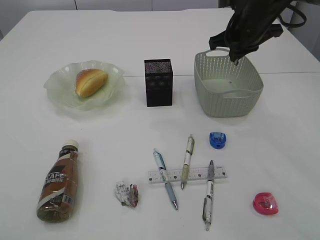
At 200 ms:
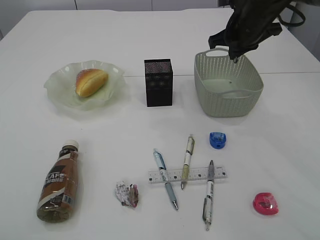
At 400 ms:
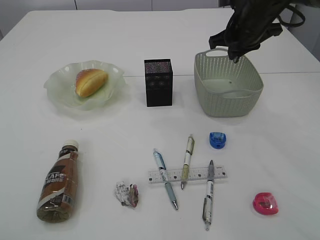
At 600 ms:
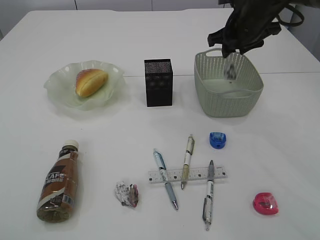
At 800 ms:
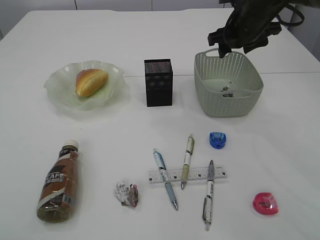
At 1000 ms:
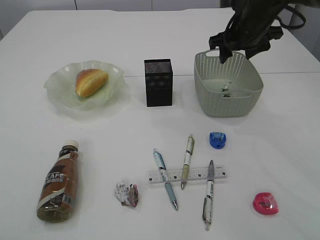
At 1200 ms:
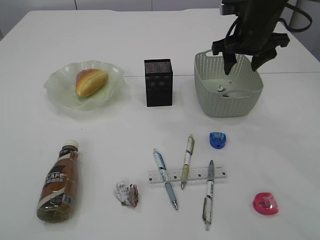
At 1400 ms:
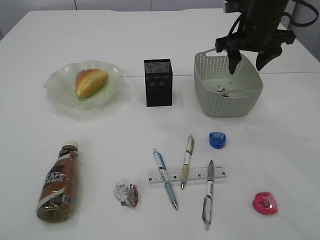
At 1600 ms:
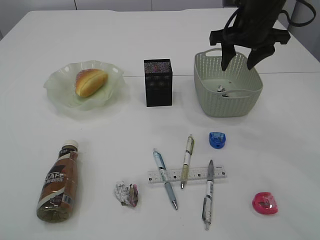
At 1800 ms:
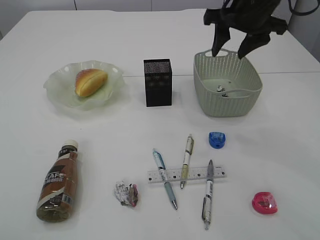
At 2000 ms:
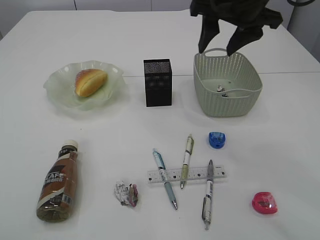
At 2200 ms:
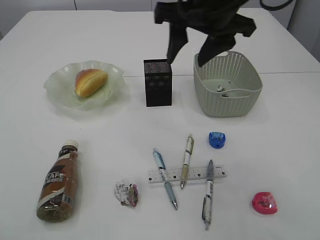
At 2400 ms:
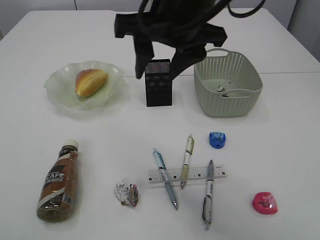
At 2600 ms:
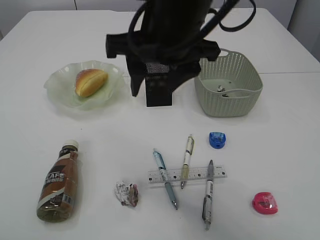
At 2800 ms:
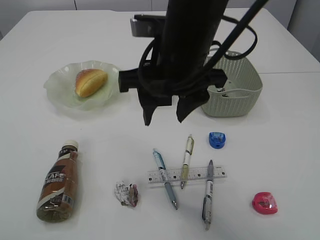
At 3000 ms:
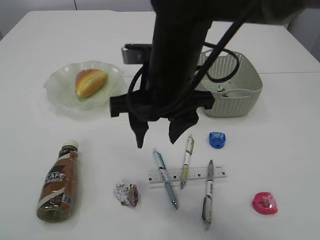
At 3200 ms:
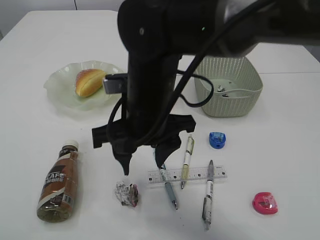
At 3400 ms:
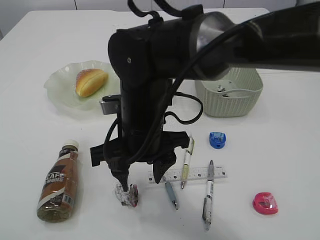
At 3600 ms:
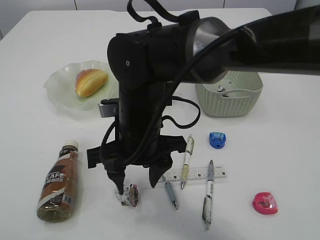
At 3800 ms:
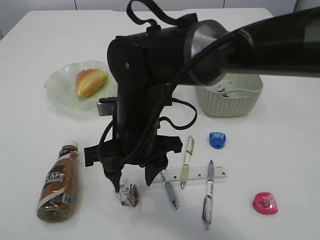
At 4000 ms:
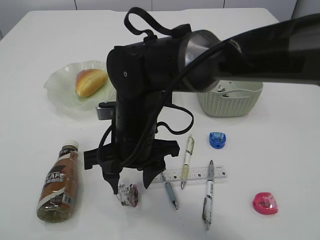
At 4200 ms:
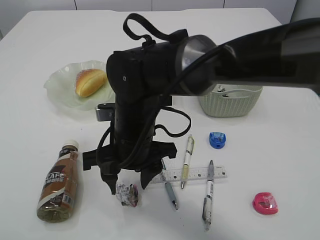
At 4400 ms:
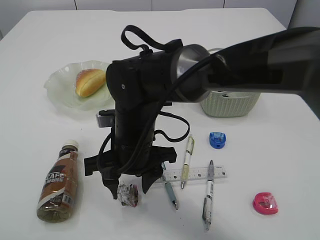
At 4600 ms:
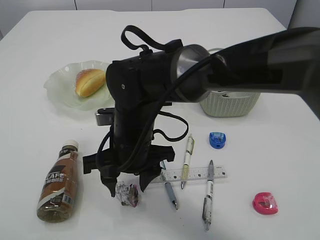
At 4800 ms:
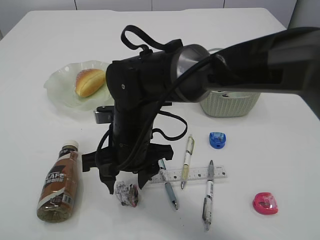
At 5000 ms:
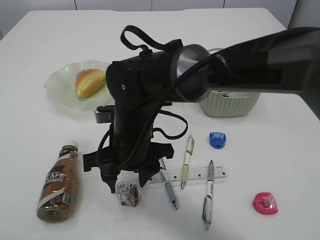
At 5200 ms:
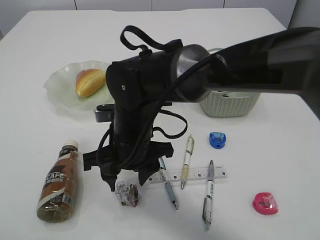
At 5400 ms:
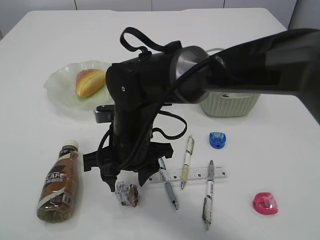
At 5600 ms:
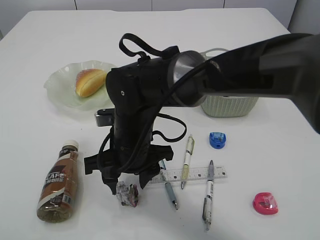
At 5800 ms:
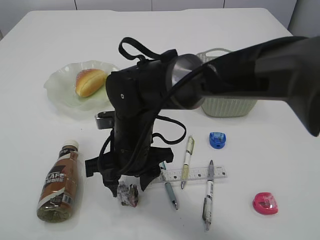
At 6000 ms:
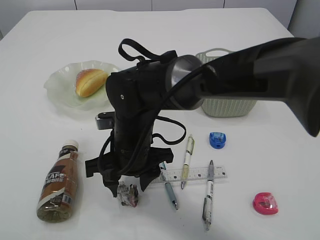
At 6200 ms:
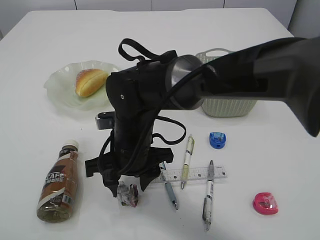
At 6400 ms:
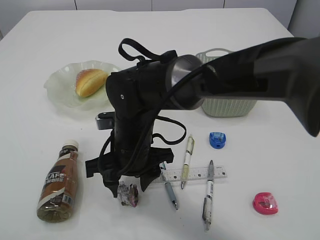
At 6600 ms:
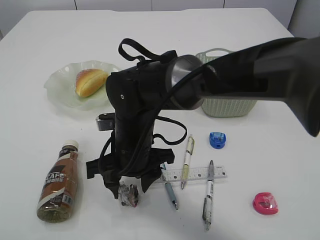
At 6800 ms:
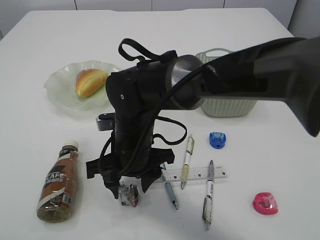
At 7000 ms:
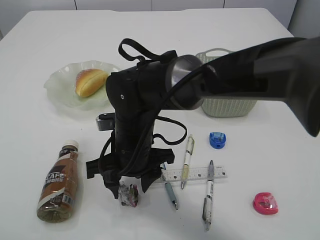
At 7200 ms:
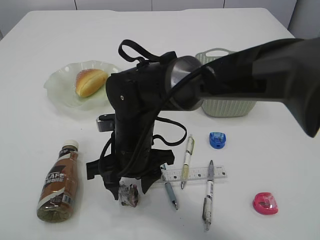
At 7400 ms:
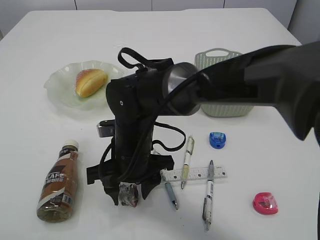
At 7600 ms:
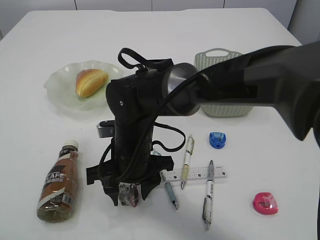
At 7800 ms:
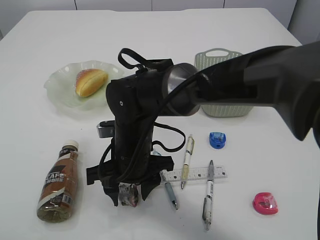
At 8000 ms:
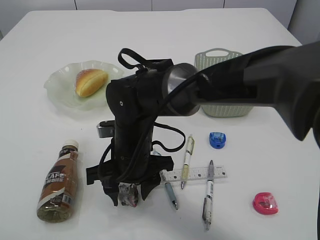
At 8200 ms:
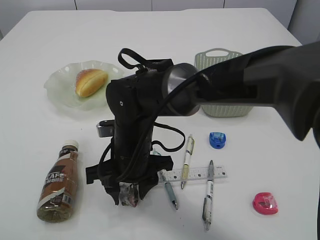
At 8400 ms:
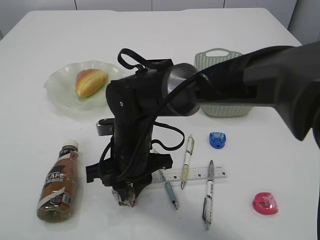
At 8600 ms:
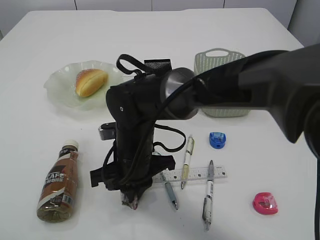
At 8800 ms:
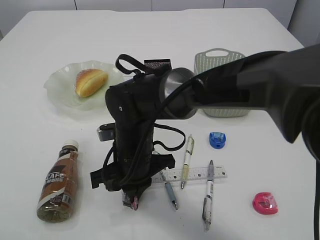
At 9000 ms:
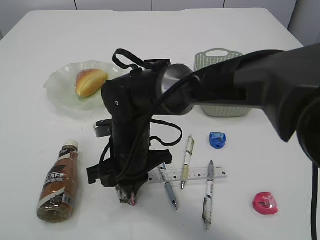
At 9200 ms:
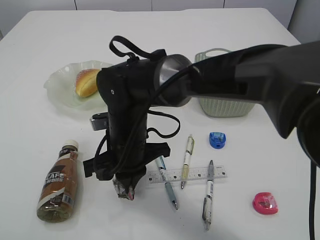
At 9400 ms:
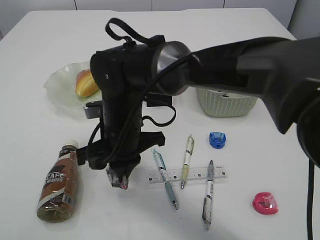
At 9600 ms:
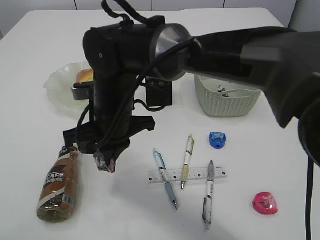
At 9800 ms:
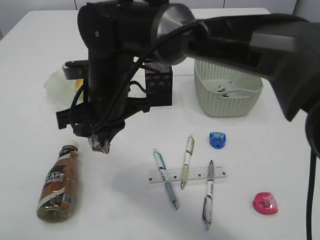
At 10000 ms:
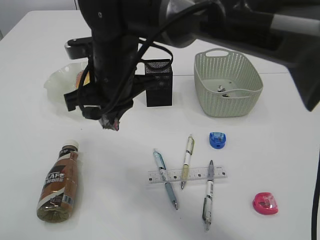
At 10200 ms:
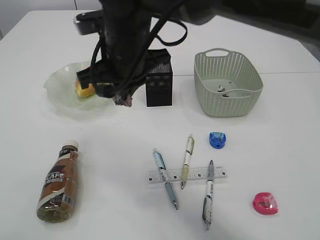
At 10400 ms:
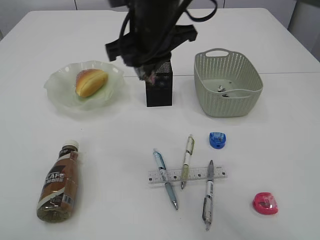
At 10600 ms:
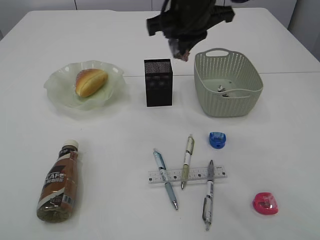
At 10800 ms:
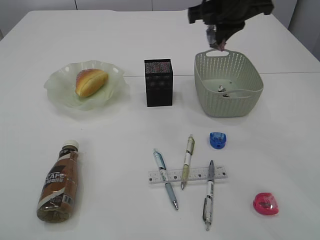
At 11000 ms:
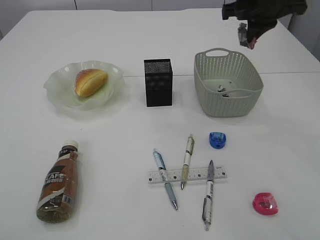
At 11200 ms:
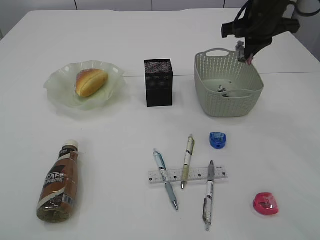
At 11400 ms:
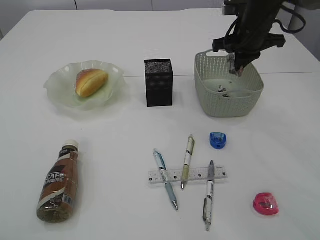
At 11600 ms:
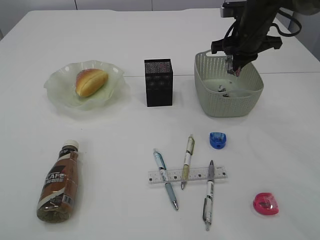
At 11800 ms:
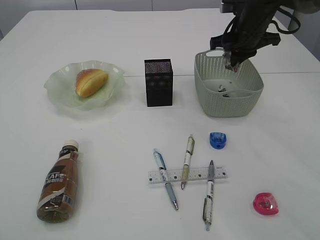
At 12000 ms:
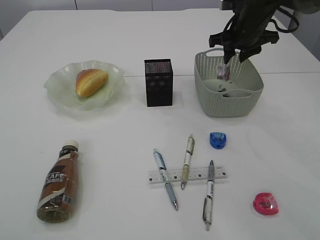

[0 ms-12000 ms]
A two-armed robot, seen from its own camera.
Step, 1800 ms to 9400 ms: Pick up the waste paper.
0 ms to 1600 ms: The right gripper opens up.
1600 ms to 3000 ms: The right gripper travels to the left and backward by approximately 20 cm.
3000 ms to 4400 ms: The right gripper travels downward and to the left by some 10 cm.
4400 ms to 6000 ms: The grippers make only small movements.
6000 ms to 7600 ms: Both grippers stay put.
7600 ms to 9000 ms: The right gripper closes its fingers.
9000 ms to 10400 ms: The right gripper moves upward, roughly 20 cm.
10400 ms to 12000 ms: The right gripper is displaced to the right and forward by approximately 25 cm, and opens up.

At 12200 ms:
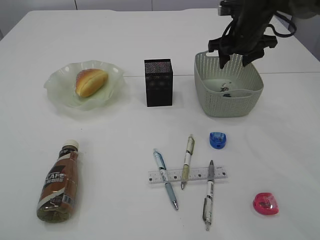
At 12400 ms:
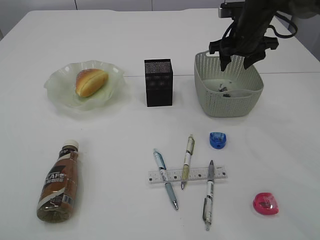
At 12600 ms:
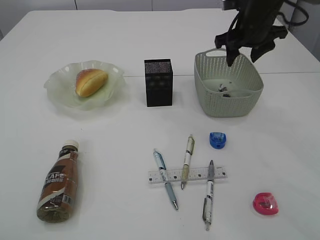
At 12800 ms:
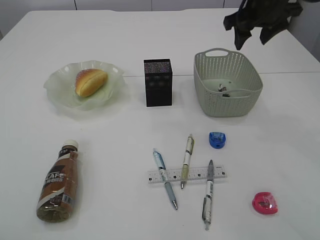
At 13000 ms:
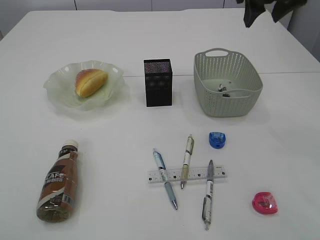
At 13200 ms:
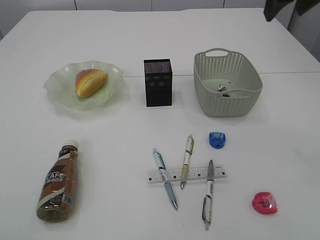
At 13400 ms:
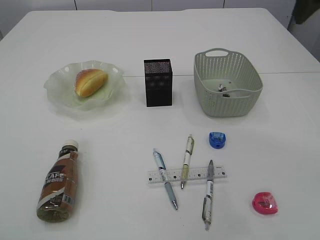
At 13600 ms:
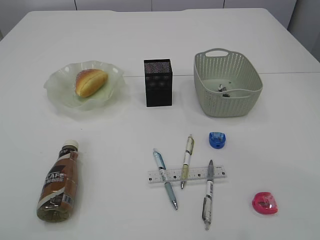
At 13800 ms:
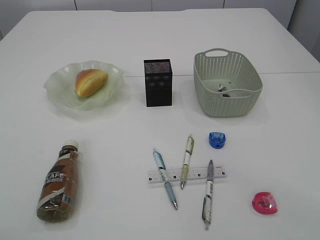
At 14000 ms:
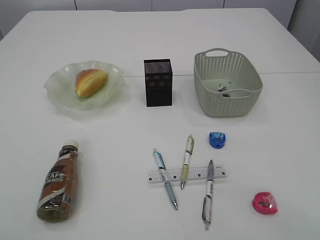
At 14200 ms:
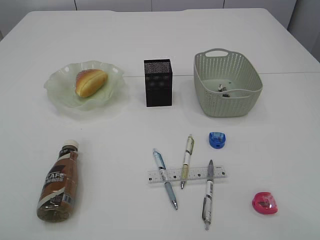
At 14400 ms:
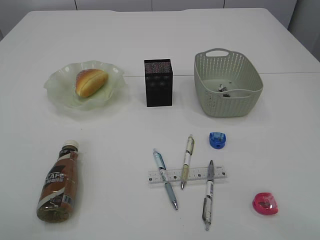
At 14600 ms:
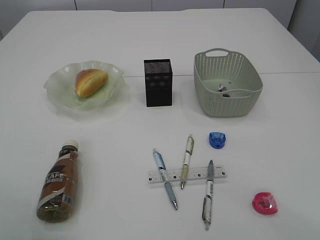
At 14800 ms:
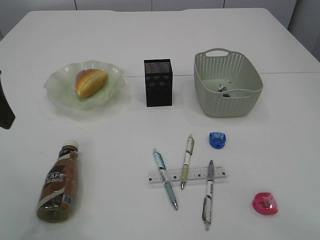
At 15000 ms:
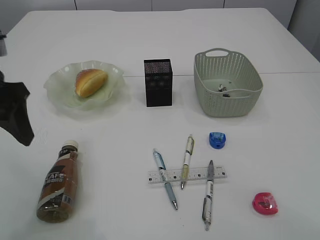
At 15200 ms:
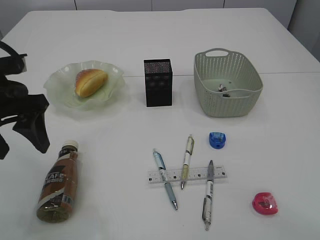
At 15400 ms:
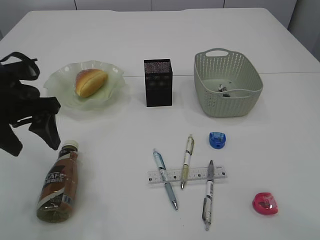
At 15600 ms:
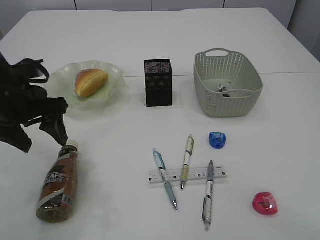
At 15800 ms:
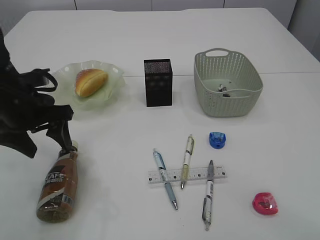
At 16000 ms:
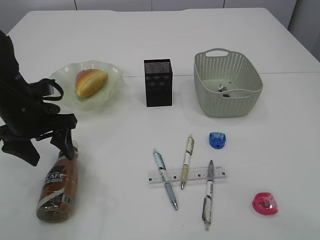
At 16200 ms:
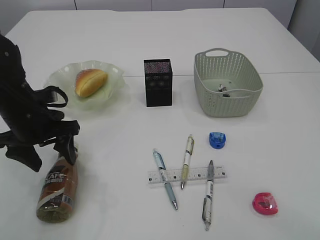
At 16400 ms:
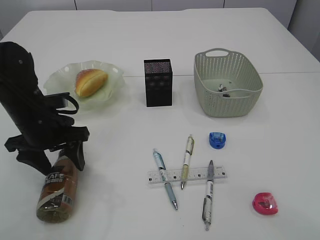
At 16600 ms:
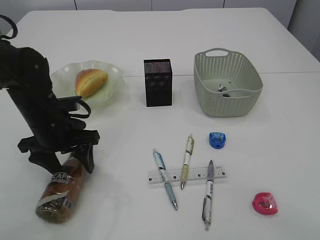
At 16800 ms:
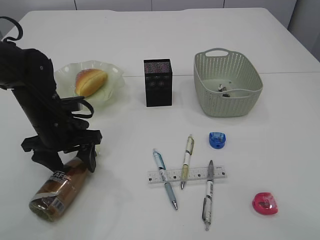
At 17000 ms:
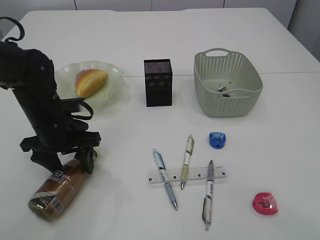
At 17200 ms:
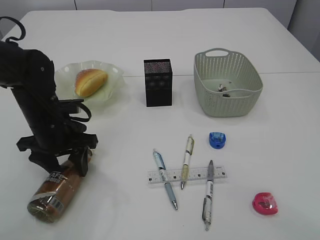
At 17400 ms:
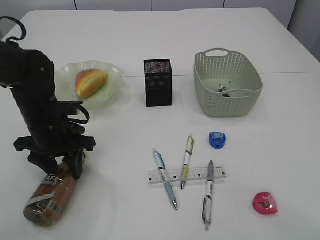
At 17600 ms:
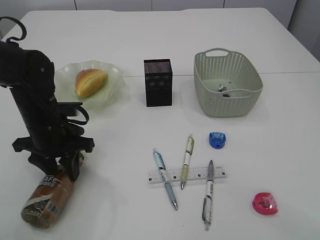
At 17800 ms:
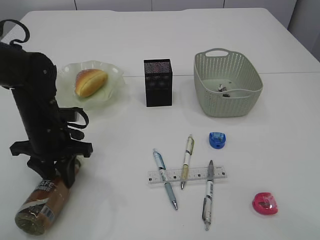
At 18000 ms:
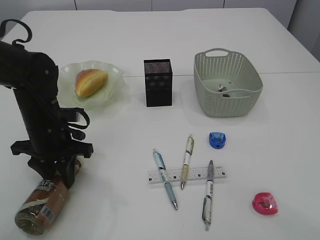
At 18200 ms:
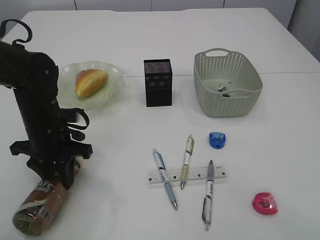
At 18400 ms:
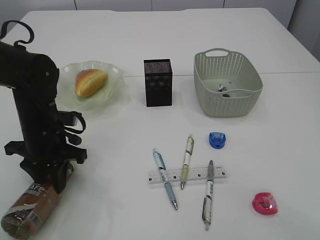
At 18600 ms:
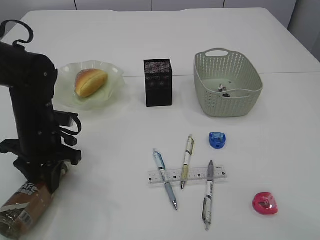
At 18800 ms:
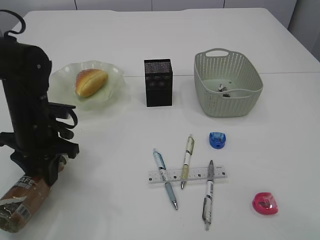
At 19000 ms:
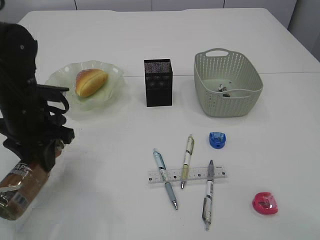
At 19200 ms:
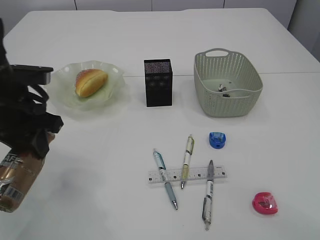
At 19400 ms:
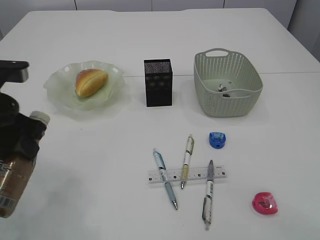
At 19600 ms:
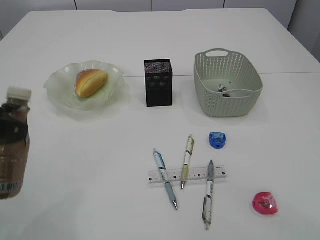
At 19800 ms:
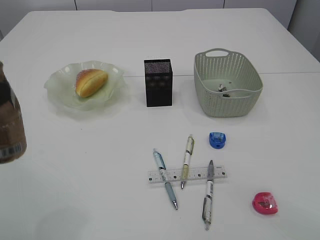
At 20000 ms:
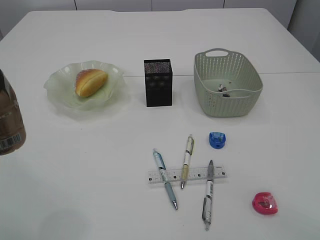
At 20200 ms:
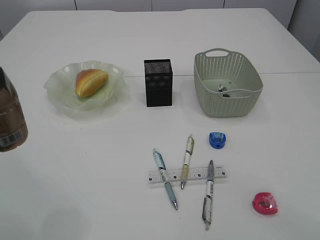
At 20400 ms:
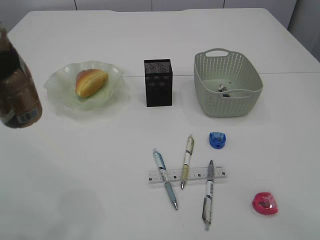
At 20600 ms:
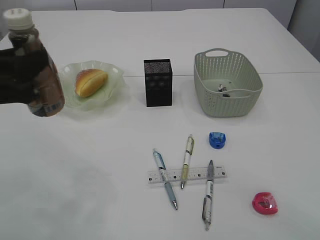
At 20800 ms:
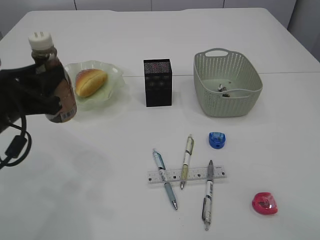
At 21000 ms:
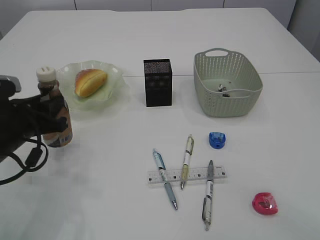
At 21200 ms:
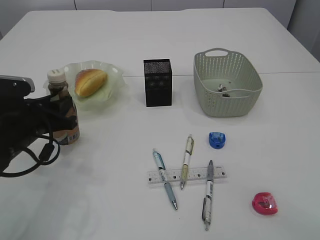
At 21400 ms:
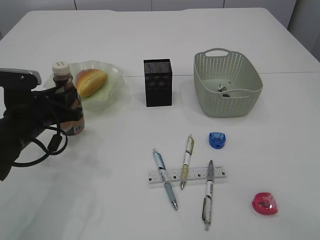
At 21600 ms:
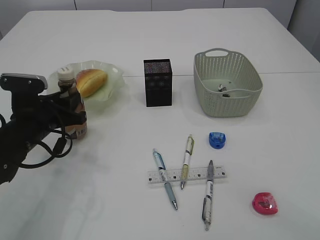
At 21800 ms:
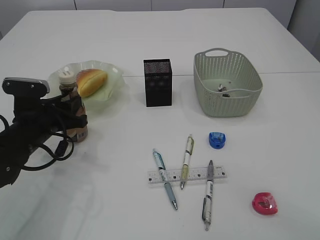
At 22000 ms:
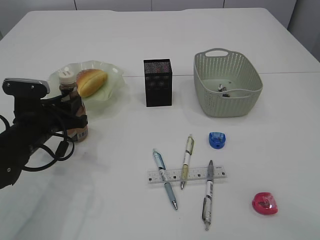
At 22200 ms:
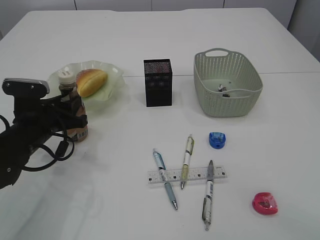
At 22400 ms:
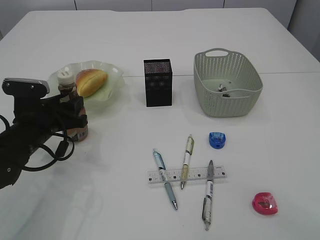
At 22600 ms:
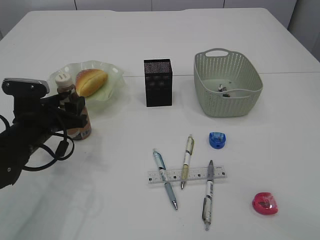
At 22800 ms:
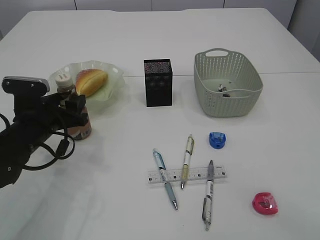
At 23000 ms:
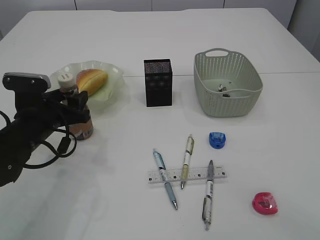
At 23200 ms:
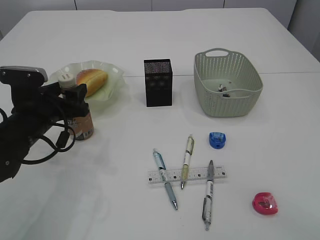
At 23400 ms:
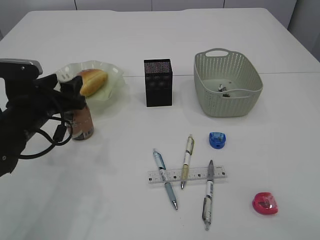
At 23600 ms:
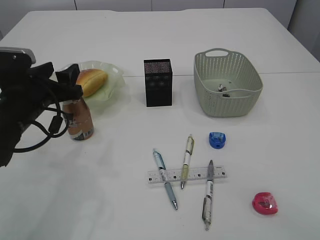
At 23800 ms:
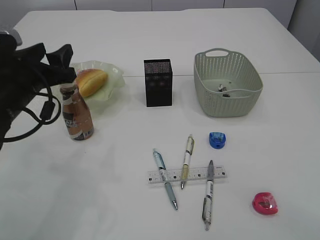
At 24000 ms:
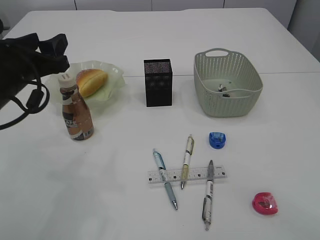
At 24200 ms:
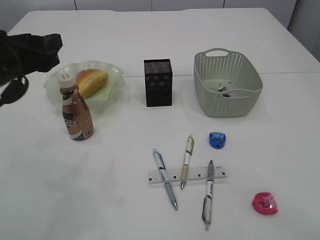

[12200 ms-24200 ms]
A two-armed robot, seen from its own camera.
Step, 12800 ms to 19000 ms: Pick up the bottle with the left arm.
Step, 19200 ms to 24000 ms: Place the bottle.
12200 ms to 13800 ms: The right gripper is displaced backward and upward by some 40 cm.
13800 ms to 15200 ms: The left gripper shifts some 25 cm downward and forward.
15200 ms to 16600 ms: The left gripper shifts about 15 cm downward and forward.
16600 ms to 18200 ms: The left gripper closes.
18200 ms to 19800 ms: The left gripper travels backward, upward and to the left by some 25 cm.
19800 ms to 21200 ms: The left gripper is displaced downward and forward by about 20 cm.
21200 ms to 22600 ms: The left gripper opens its fingers.
22600 ms to 24200 ms: The left gripper travels upward by about 15 cm.
